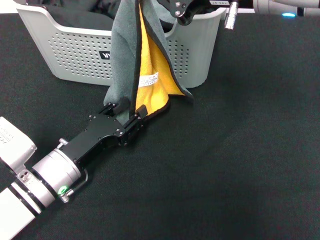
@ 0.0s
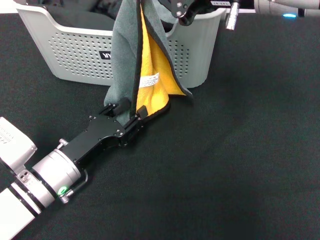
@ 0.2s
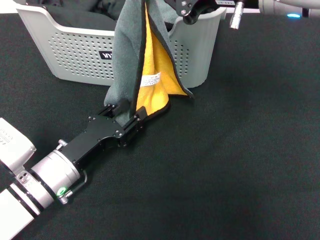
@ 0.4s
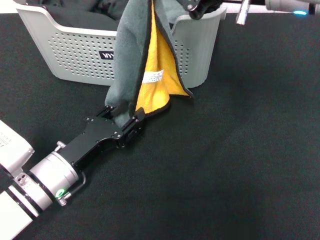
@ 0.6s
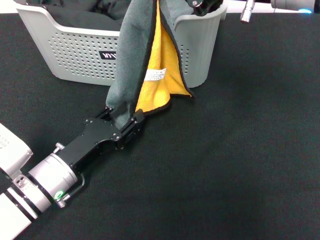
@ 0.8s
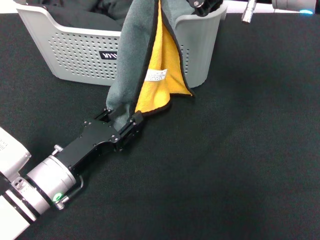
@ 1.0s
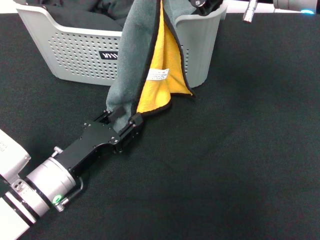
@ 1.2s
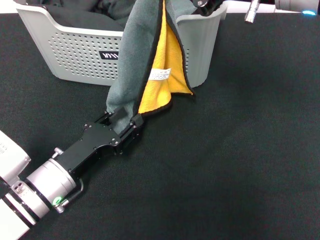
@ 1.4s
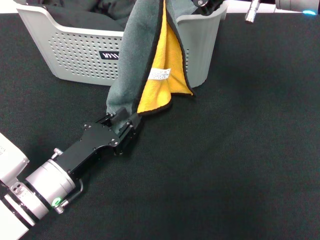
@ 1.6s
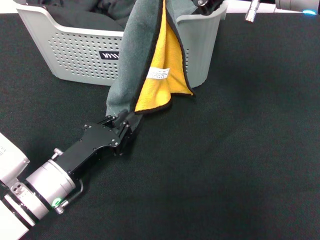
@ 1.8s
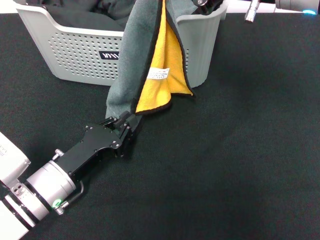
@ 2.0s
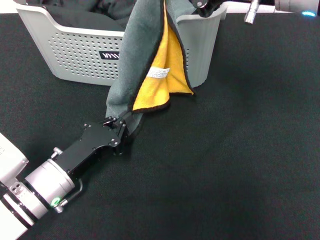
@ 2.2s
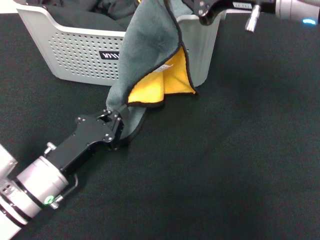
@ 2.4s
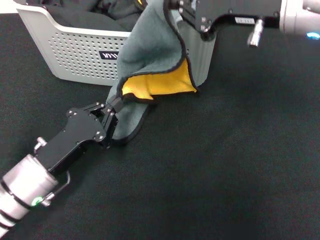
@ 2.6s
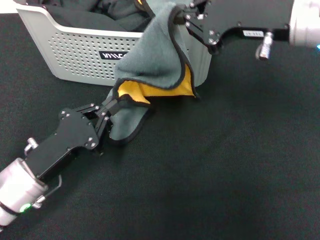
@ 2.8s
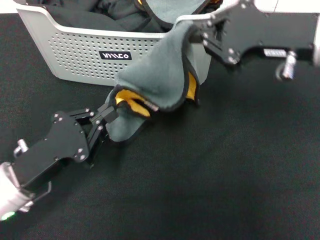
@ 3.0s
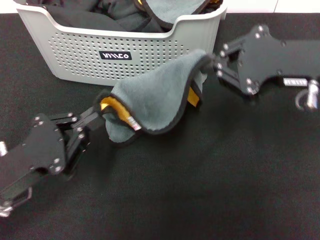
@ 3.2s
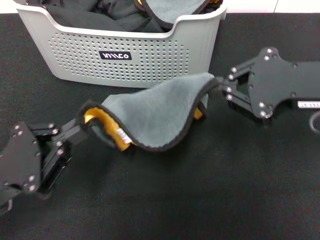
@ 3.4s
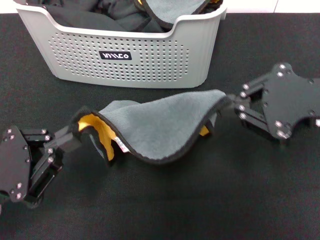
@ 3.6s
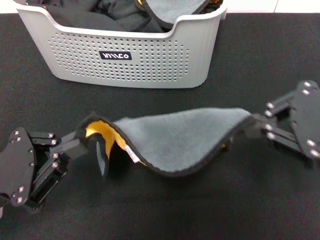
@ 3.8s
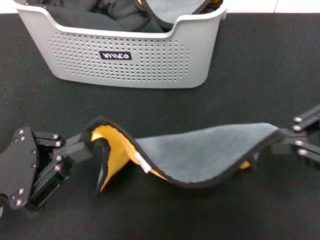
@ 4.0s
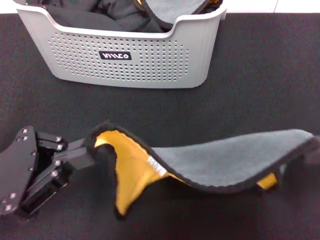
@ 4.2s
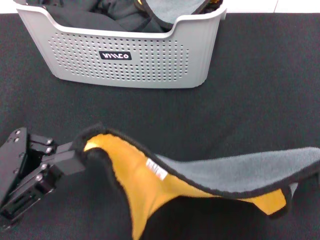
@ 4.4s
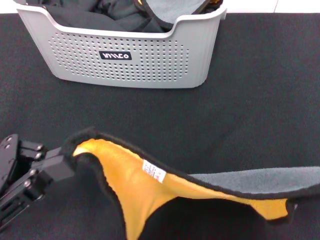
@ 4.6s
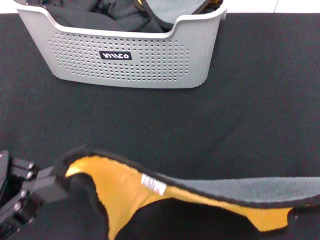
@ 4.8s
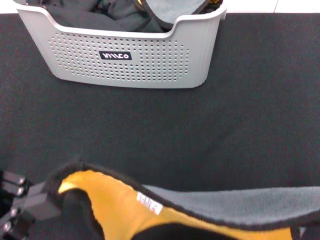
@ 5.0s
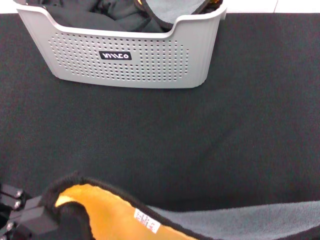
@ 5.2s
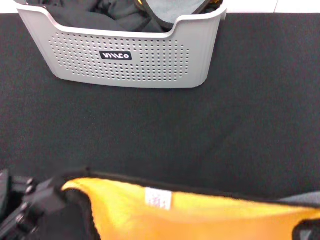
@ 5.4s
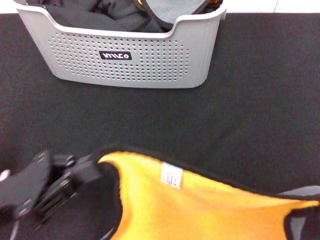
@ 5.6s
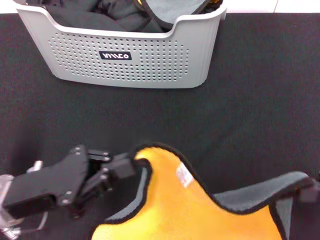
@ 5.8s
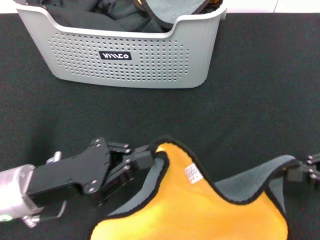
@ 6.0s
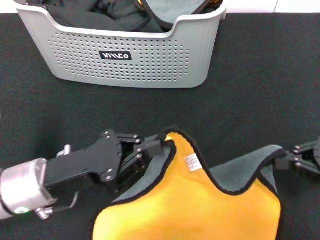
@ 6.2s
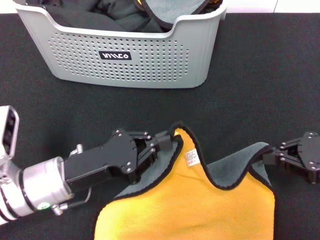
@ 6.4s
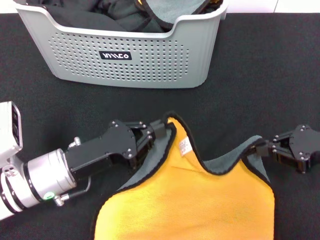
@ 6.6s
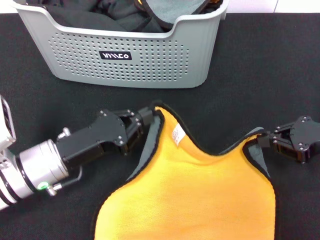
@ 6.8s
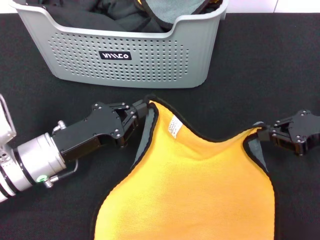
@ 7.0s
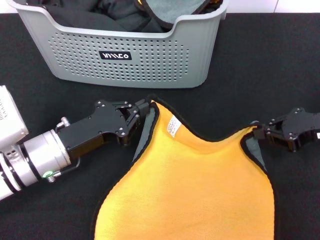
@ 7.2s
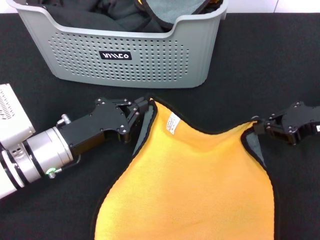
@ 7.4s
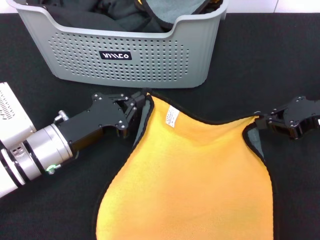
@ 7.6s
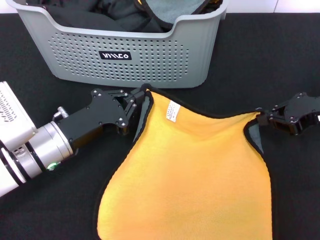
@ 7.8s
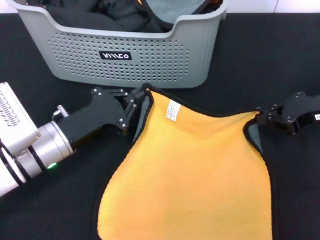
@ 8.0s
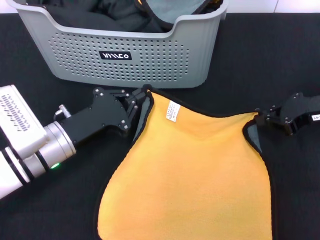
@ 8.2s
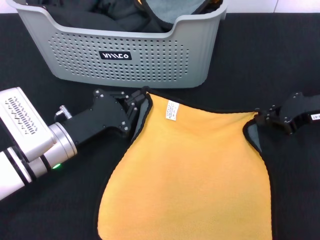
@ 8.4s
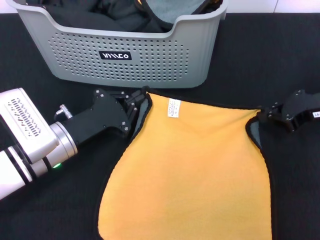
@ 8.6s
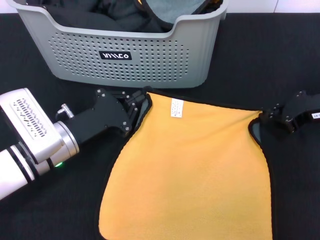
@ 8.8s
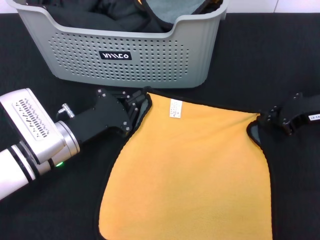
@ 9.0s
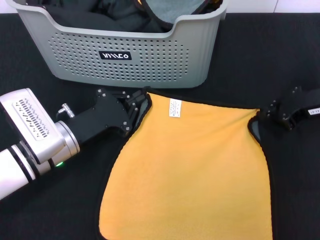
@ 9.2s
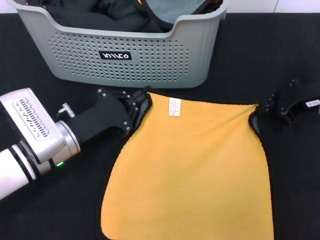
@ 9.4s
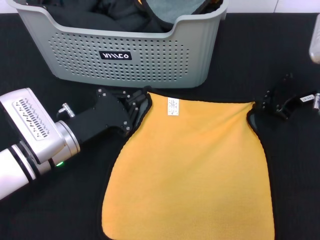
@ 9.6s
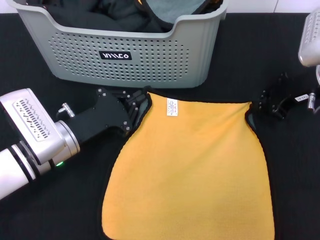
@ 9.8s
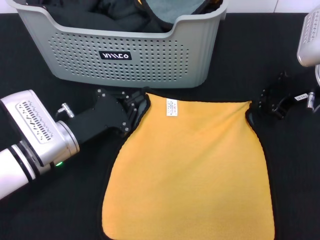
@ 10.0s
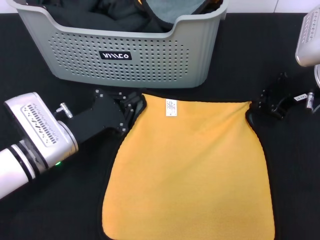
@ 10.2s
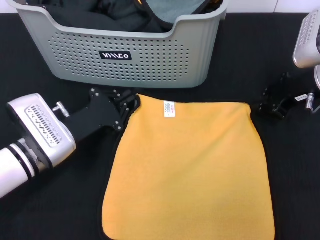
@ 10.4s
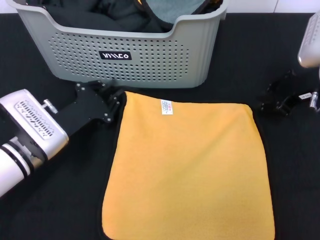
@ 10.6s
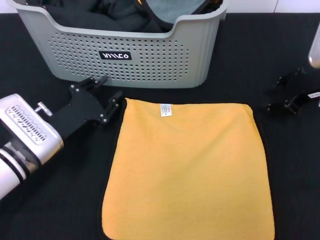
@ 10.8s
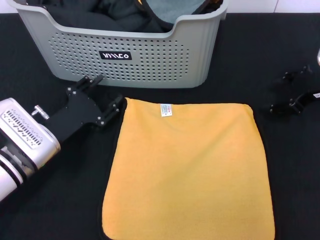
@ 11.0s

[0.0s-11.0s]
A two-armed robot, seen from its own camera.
Task of the whole recording: pick up the towel from the storage box and lay it flat on the black tablecloth.
Step, 0.0s to 10.4s: Spread the towel flat with the right gripper.
0.0s to 1.6s: The grippers move only a little.
1.6s to 3.2s: The right gripper travels backward and to the right by approximately 10 cm; the left gripper heads upward and to the left, covering approximately 10 cm, and closes.
3.2s to 4.8s: The right gripper is displaced to the right and backward by approximately 15 cm; the left gripper heads upward, covering approximately 5 cm.
4.8s to 6.2s: The right gripper heads downward and forward, covering roughly 15 cm; the left gripper shifts some 10 cm downward, forward and to the right.
6.2s to 7.8s: The left gripper is displaced forward by some 5 cm, while the right gripper moves forward, roughly 10 cm.
9.4s to 11.0s: The left gripper opens up. Meanwhile the right gripper opens.

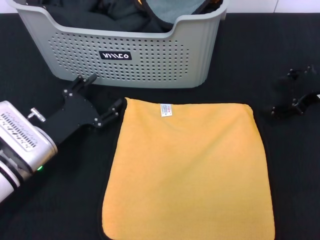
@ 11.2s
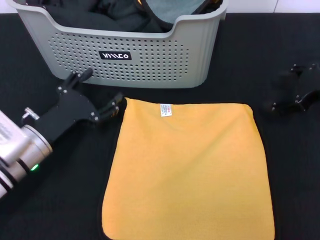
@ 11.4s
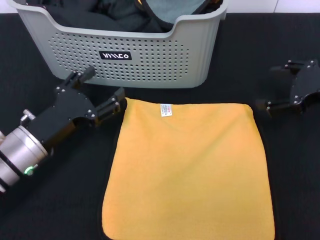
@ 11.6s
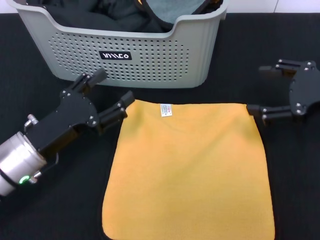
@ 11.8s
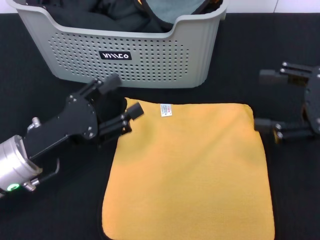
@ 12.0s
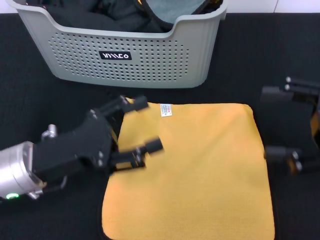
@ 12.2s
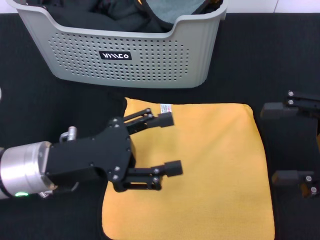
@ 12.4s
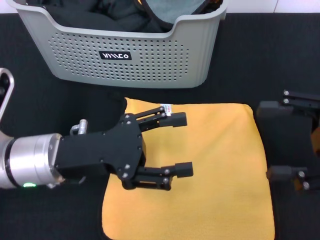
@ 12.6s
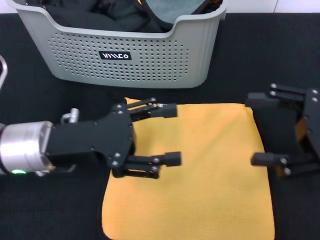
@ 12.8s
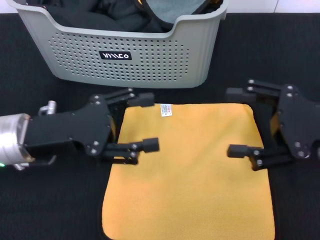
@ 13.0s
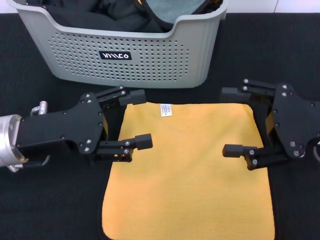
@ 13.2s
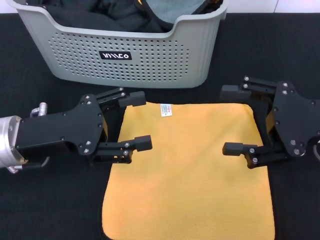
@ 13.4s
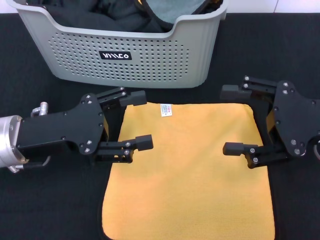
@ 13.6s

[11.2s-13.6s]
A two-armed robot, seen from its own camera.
Task of the whole recording: pick up the towel from the storage box and lay it flat on the black tablecloth.
11.2s to 12.4s: The left gripper heads upward, covering about 10 cm, while the right gripper goes roughly 10 cm backward.
12.4s to 13.6s: The right gripper moves some 5 cm.

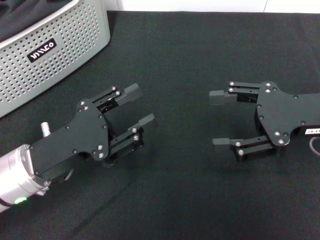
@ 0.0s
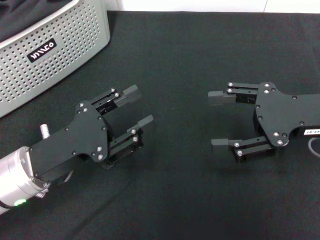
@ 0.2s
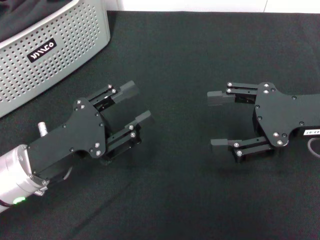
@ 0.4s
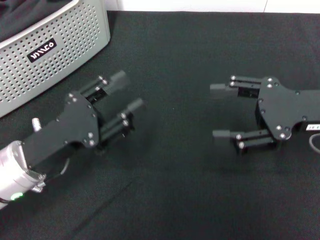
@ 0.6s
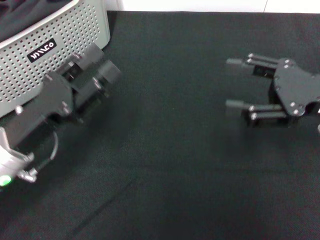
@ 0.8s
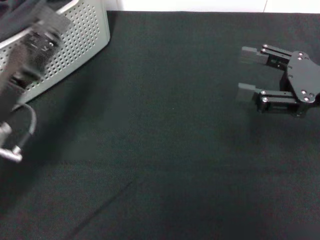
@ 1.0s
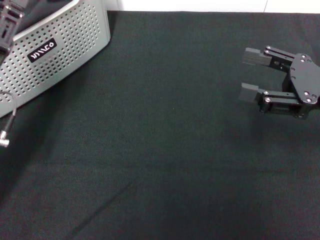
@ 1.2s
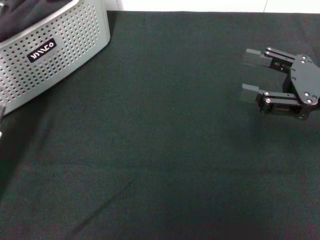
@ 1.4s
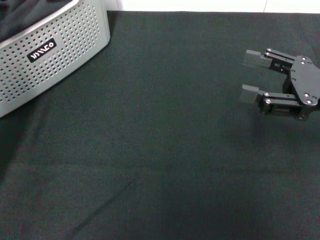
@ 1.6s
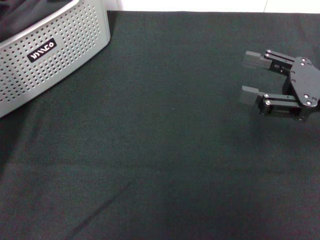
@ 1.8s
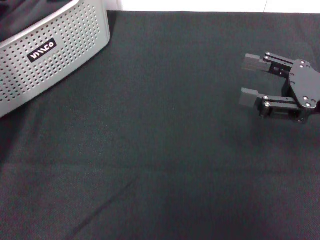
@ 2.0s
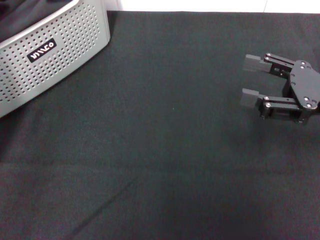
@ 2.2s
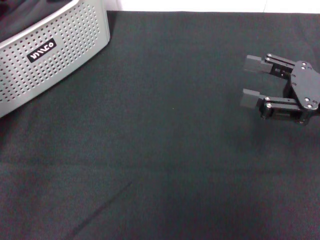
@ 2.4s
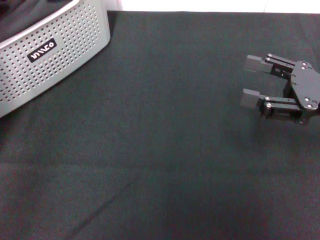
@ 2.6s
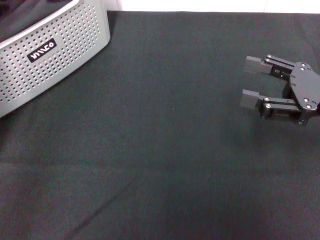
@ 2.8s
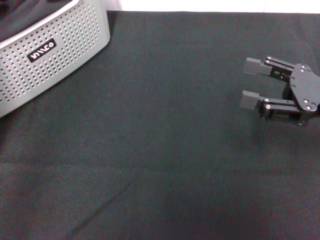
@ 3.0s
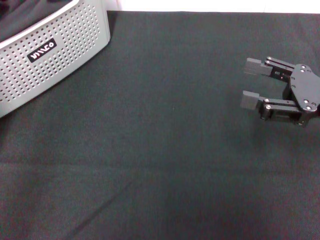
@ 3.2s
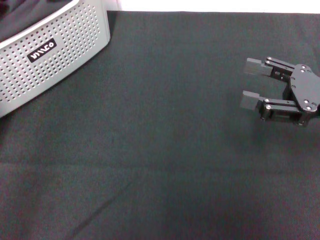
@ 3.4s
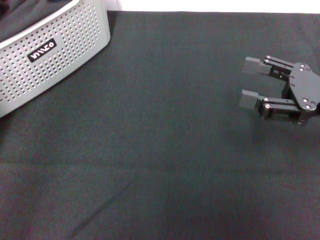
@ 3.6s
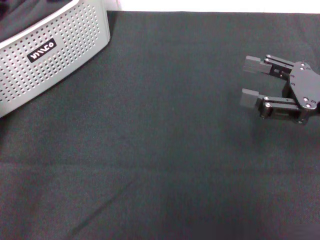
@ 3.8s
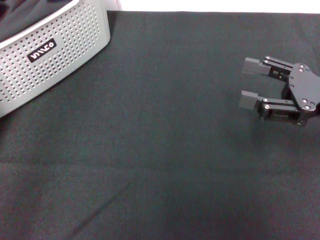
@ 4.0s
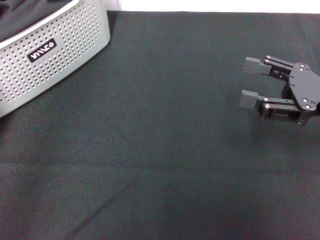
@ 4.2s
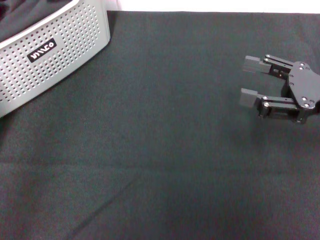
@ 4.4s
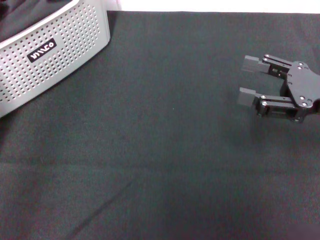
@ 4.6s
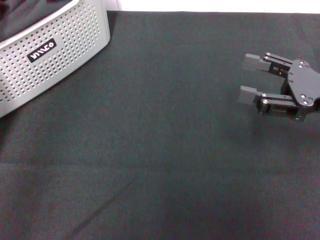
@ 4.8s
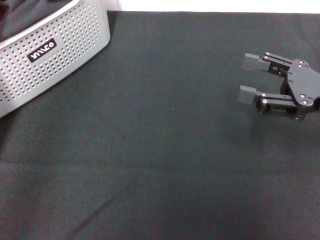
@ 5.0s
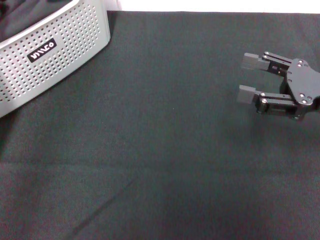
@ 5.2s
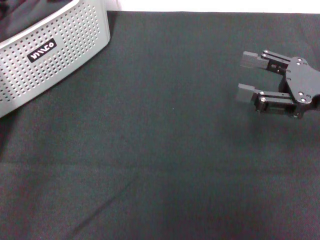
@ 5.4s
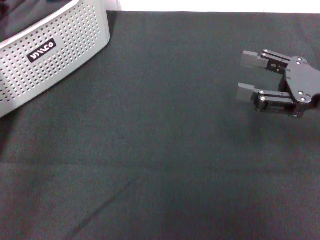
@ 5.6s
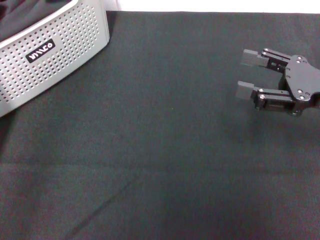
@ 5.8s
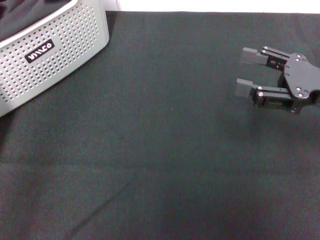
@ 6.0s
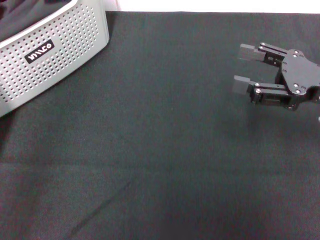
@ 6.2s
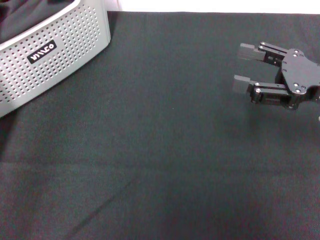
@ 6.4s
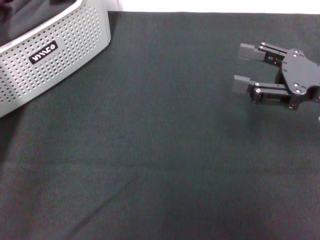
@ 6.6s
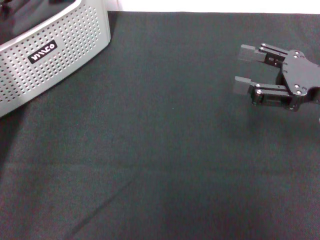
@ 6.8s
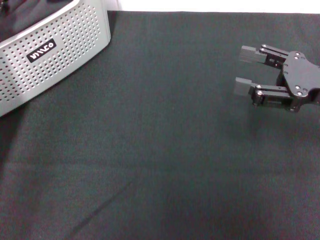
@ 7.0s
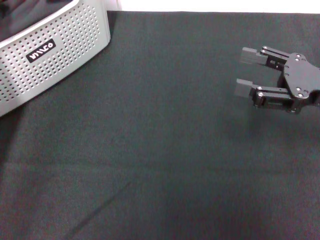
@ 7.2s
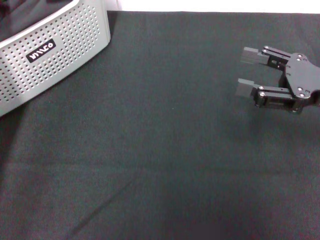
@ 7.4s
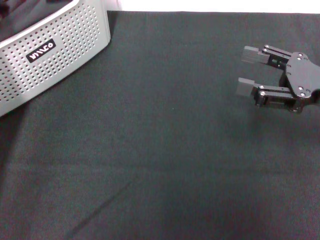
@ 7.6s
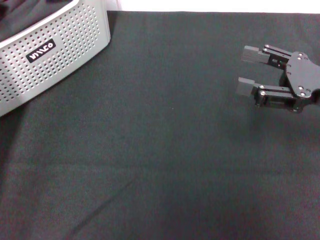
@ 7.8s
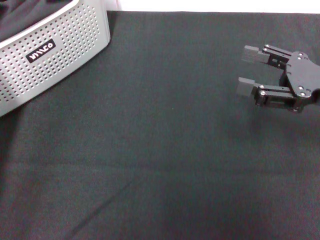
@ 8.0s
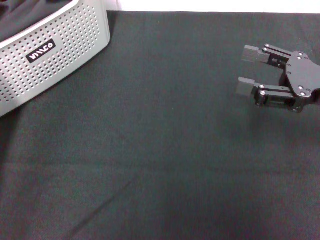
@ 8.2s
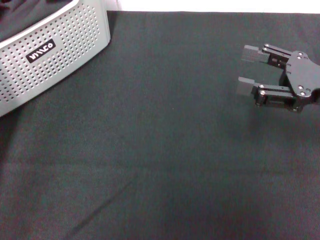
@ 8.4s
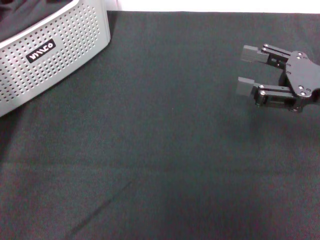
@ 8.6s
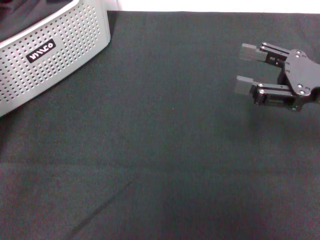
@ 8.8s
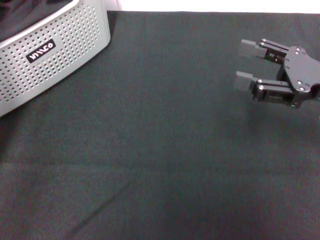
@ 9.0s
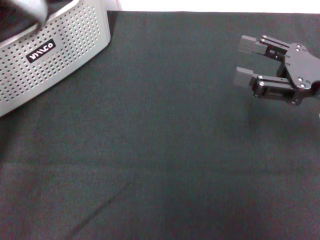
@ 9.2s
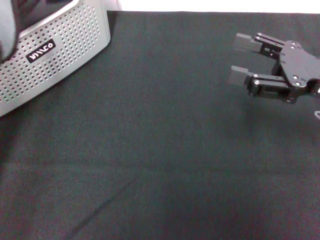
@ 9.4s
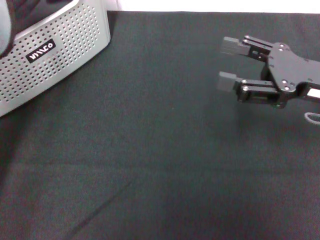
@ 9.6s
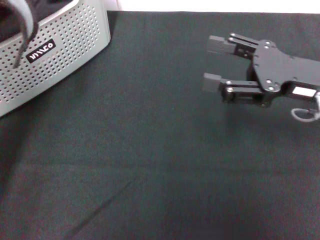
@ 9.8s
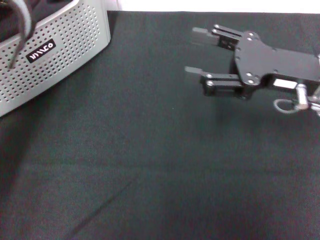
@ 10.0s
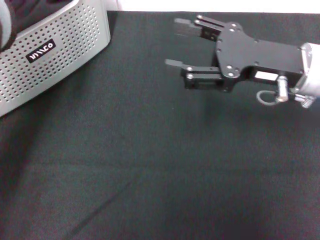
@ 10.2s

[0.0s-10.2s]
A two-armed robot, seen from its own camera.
Task of the whole recording: pick up the towel from the storage box and lay it flat on the black tablecloth.
Step, 0.0s to 8.2s: Pick up a towel with the left gripper.
0.0s to 1.4s: The left gripper heads to the left, covering about 5 cm.
1.4s to 3.0s: The left gripper is displaced upward by about 5 cm.
4.4s to 7.2s: The grippers move only a little.
7.2s to 8.8s: The left gripper closes its fingers.
8.8s to 10.2s: The right gripper shifts some 10 cm to the left; the left gripper travels upward and to the right by about 10 cm.
